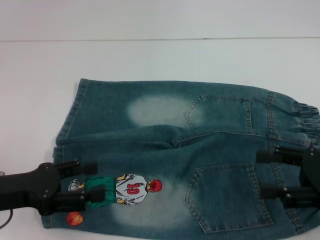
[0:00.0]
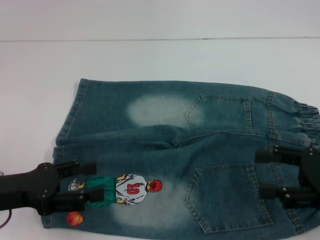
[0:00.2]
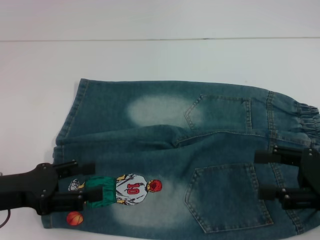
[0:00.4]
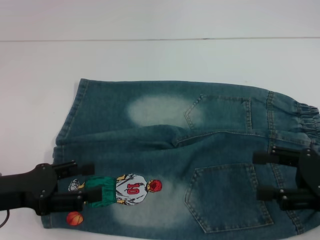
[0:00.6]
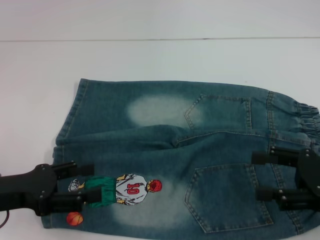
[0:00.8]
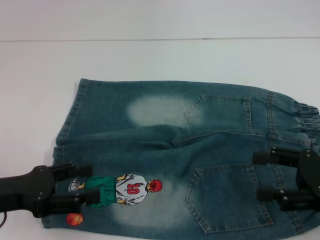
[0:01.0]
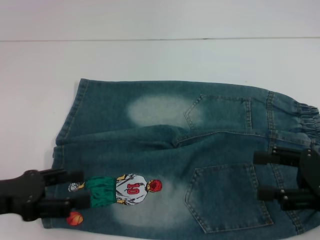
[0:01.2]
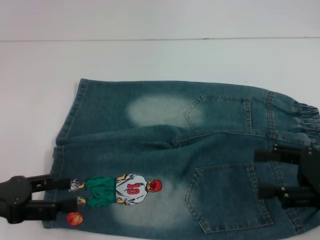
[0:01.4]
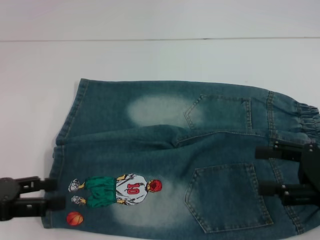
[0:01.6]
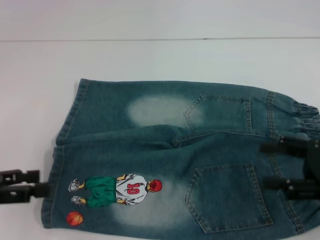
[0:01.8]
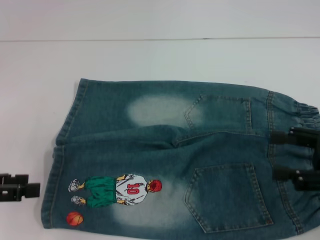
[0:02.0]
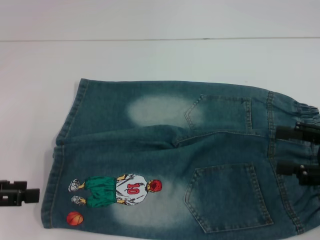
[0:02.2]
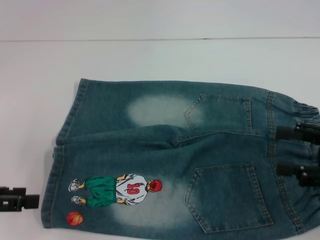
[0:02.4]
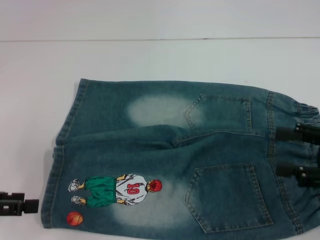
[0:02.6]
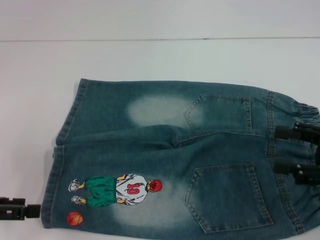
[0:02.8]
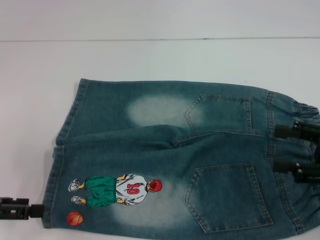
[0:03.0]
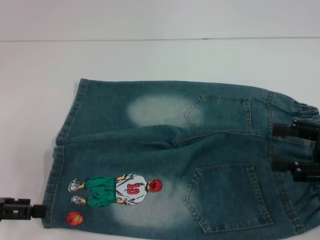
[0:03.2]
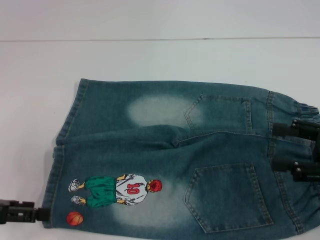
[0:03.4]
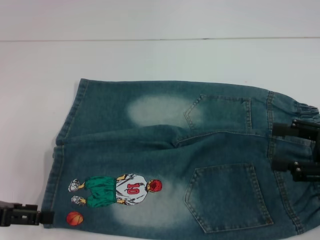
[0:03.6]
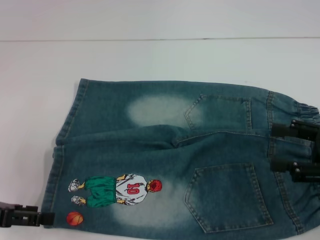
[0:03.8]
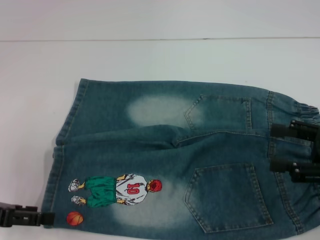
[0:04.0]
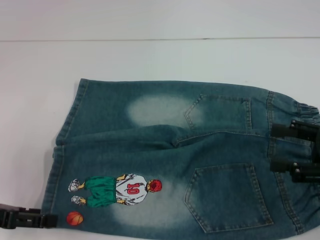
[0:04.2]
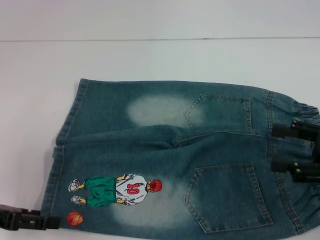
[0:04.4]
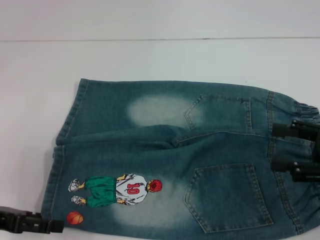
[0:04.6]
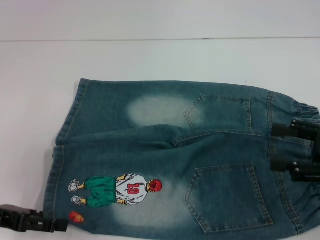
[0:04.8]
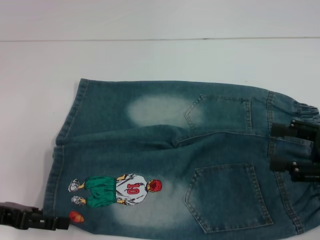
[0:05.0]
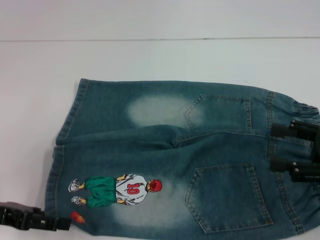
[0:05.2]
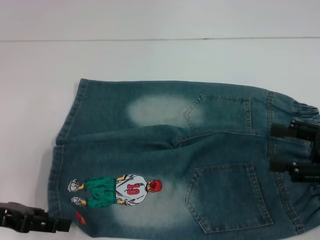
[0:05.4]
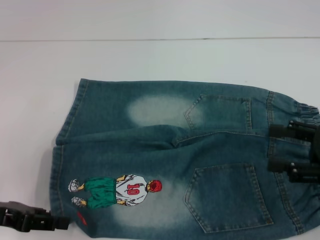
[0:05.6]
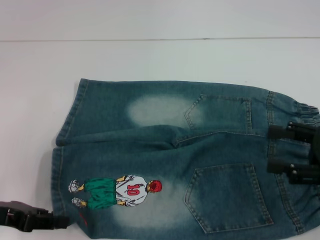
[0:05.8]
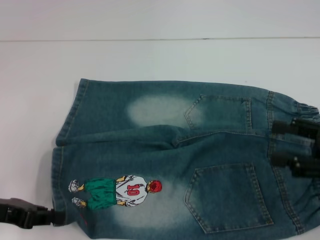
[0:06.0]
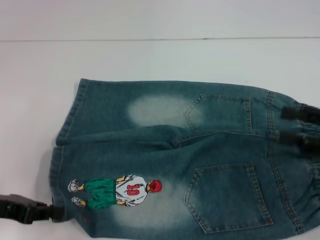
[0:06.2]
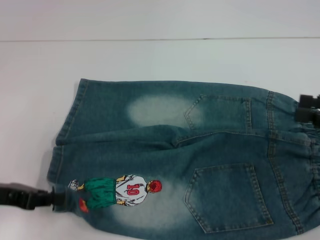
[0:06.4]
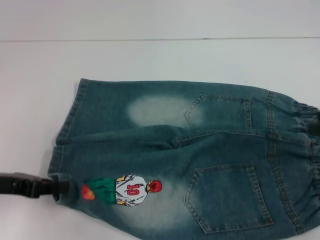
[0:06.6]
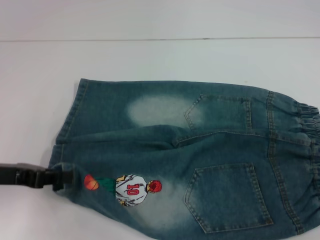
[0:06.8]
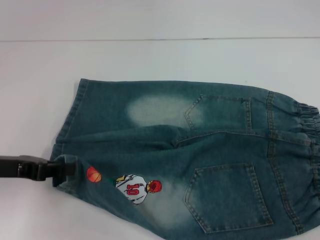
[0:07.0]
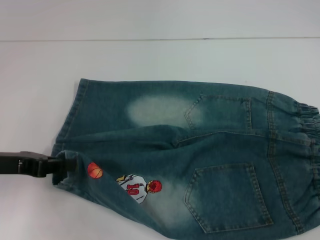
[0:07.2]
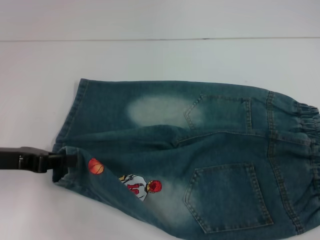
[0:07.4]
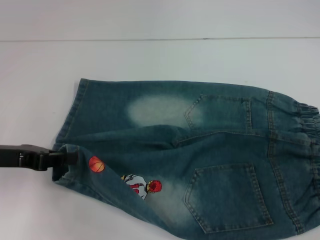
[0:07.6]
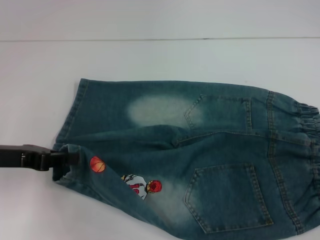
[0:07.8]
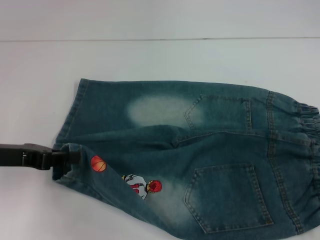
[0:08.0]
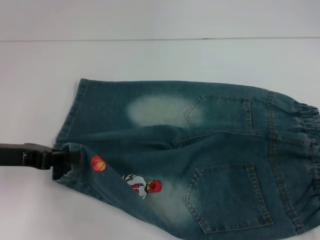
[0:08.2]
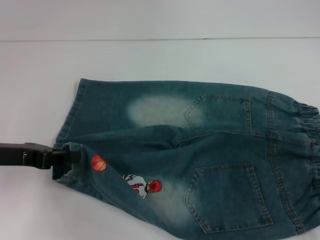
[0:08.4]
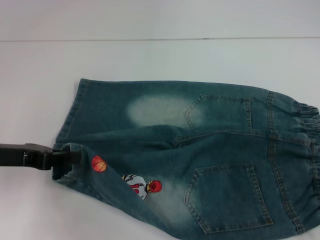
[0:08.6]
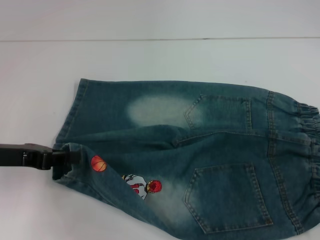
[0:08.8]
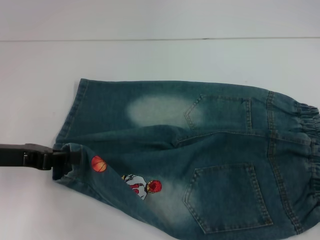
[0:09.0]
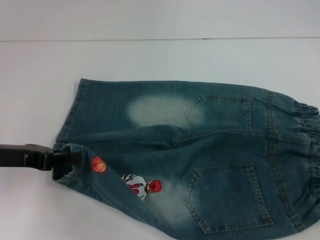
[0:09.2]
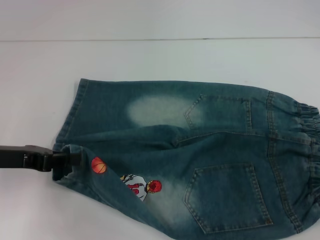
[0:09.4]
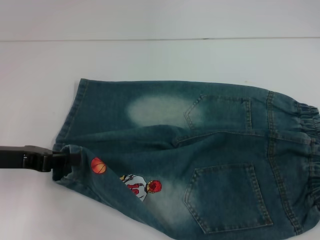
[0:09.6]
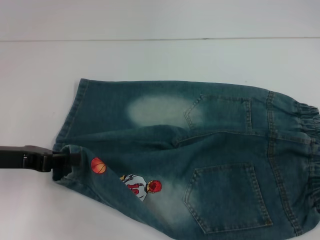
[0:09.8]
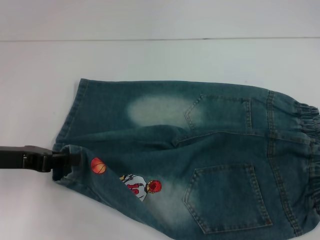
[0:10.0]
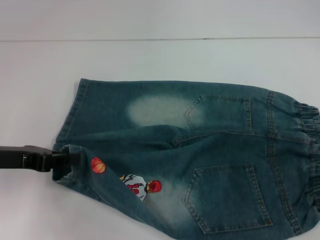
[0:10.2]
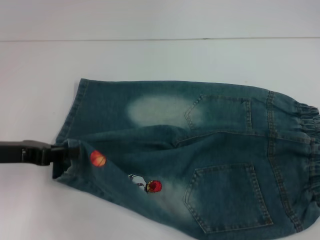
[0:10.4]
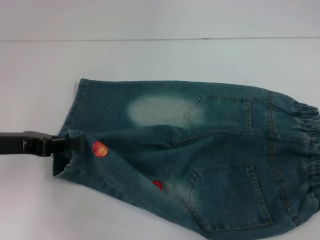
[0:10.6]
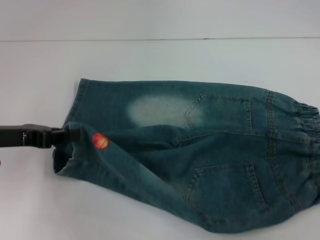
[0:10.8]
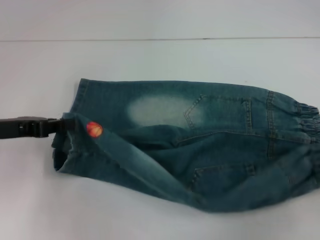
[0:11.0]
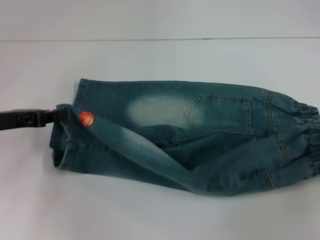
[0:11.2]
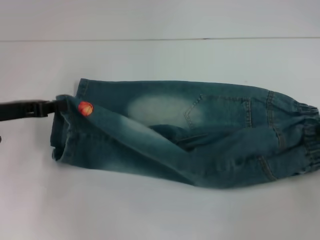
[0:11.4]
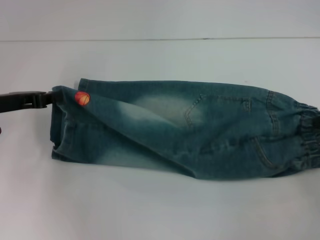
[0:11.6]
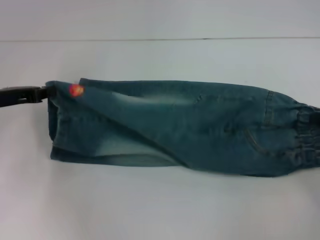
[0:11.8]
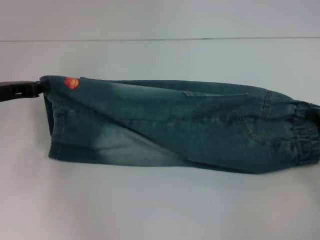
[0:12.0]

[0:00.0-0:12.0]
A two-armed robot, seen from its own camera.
Step, 0:00.0 to 0:06.2: Grab the lower left pant leg with your left hand.
Step, 0:06.4 to 0:10.2: Hold the lower right waistband with your right hand.
0:00.0 to 0:01.6: The grippers stay close to where they were, moving slightly.
0:03.0 to 0:04.4: There are only small adjustments of the grippers.
0:04.4 to 0:06.0: The left gripper closes.
0:06.0 to 0:07.6: The right gripper heads to the right, covering about 5 cm, while the left gripper shifts by about 5 cm.
0:07.6 to 0:09.0: The grippers stay close to where they were, moving slightly.
0:09.0 to 0:10.4: The right gripper closes its fingers.
0:10.4 to 0:12.0: The left gripper moves forward, about 5 cm; the right gripper moves downward, roughly 5 cm.

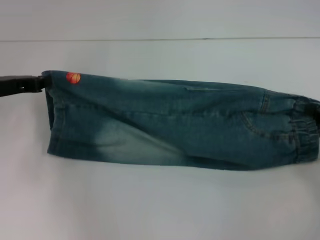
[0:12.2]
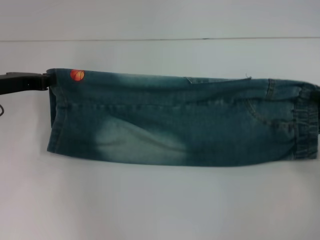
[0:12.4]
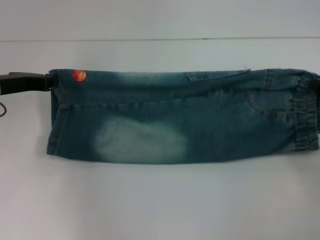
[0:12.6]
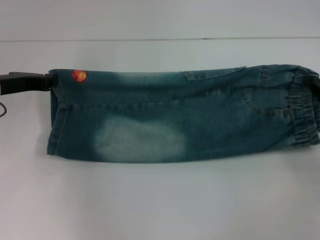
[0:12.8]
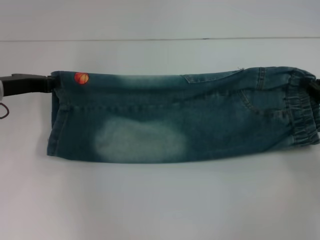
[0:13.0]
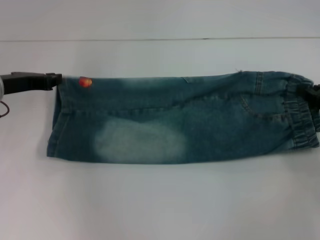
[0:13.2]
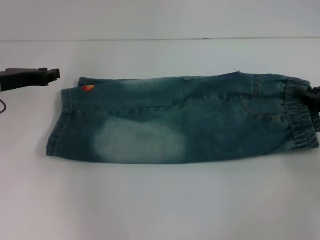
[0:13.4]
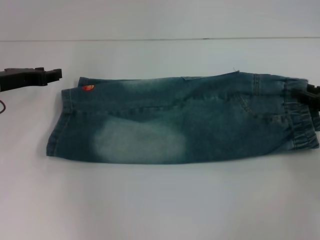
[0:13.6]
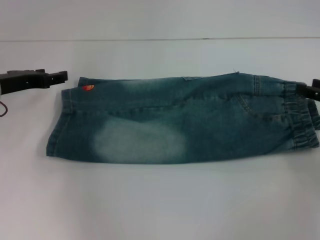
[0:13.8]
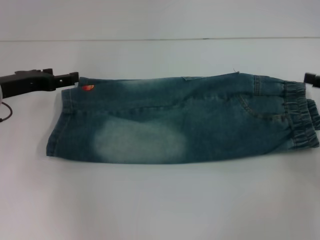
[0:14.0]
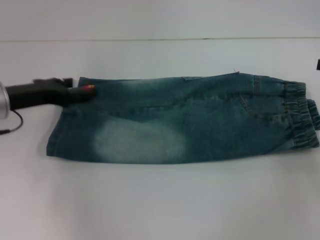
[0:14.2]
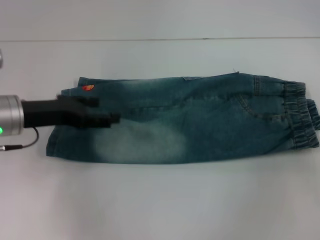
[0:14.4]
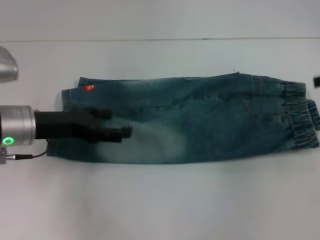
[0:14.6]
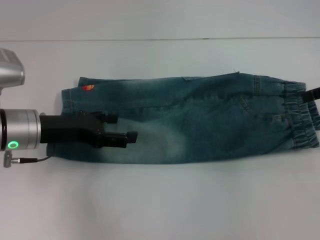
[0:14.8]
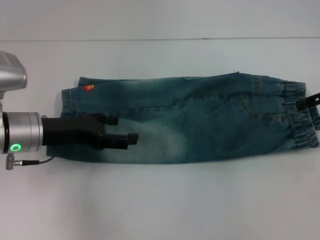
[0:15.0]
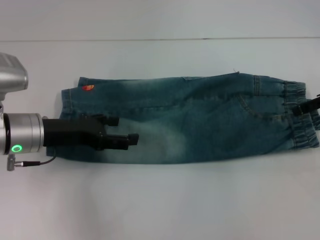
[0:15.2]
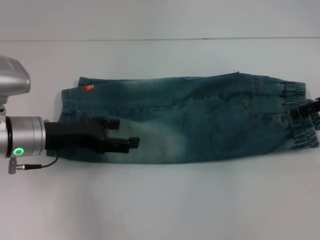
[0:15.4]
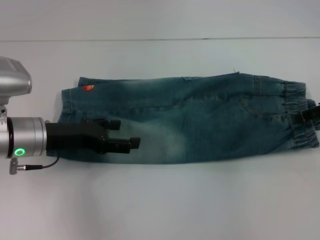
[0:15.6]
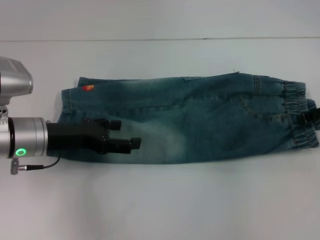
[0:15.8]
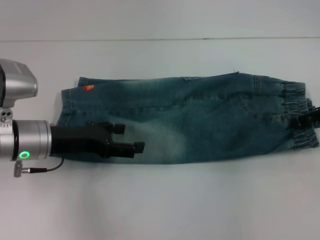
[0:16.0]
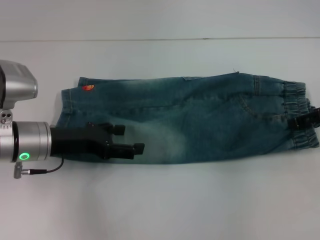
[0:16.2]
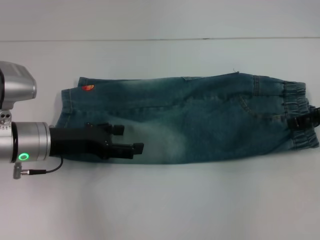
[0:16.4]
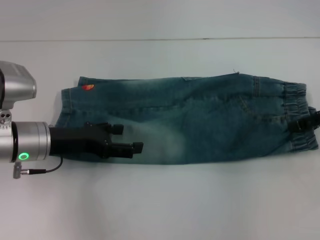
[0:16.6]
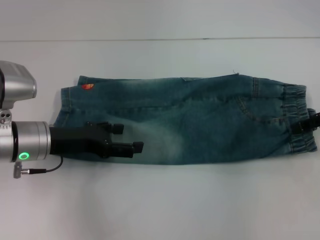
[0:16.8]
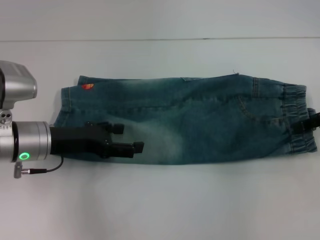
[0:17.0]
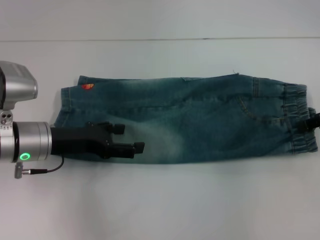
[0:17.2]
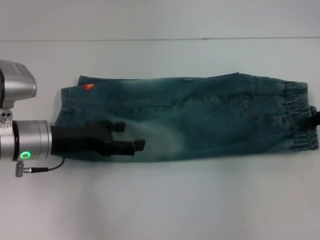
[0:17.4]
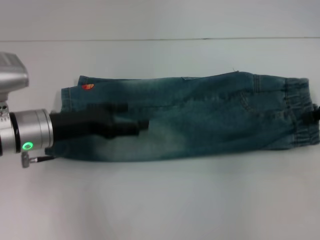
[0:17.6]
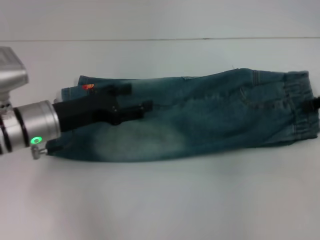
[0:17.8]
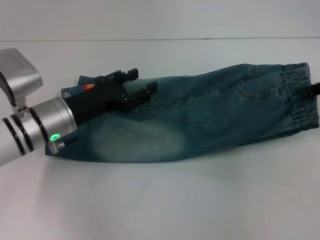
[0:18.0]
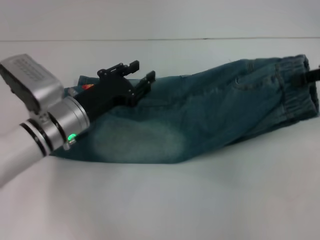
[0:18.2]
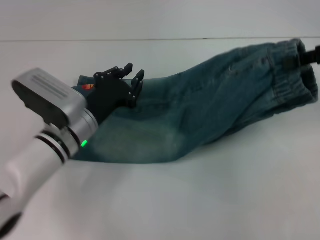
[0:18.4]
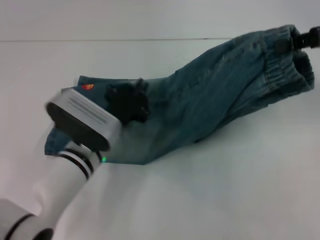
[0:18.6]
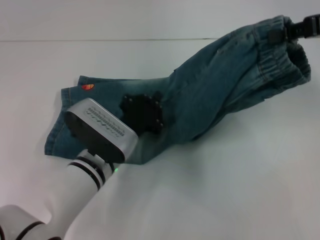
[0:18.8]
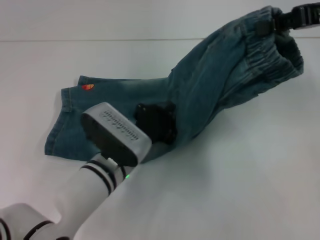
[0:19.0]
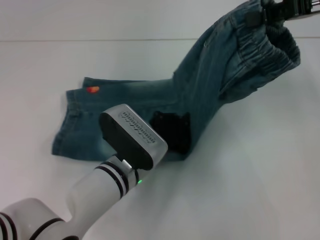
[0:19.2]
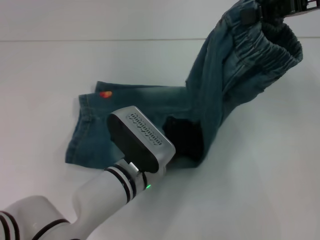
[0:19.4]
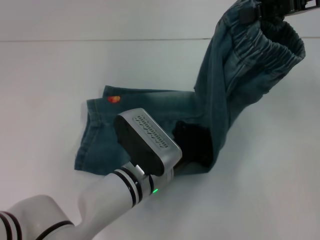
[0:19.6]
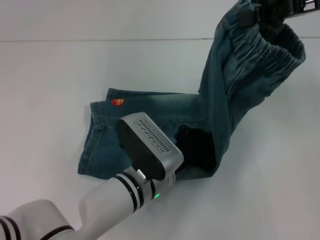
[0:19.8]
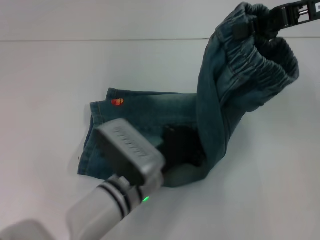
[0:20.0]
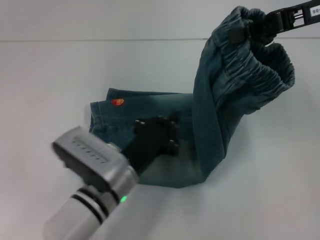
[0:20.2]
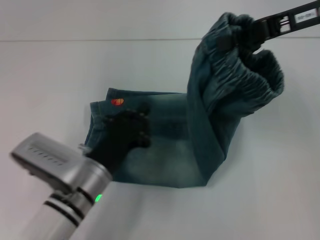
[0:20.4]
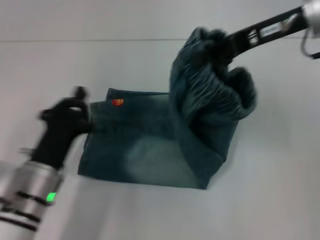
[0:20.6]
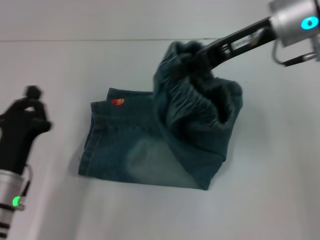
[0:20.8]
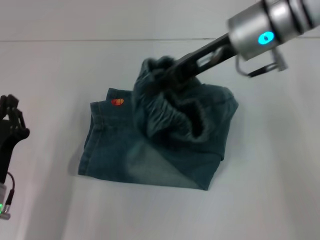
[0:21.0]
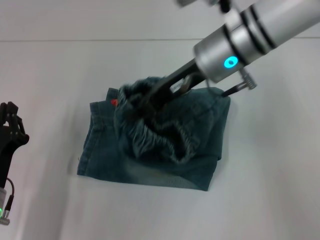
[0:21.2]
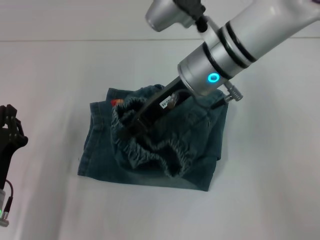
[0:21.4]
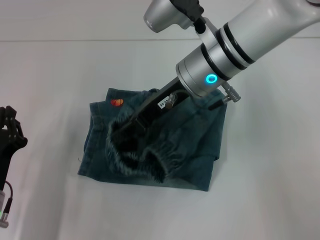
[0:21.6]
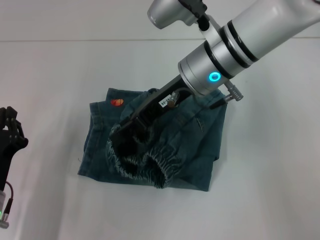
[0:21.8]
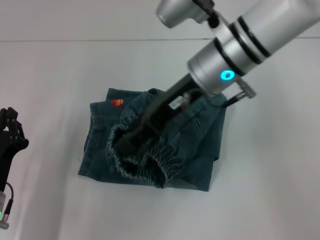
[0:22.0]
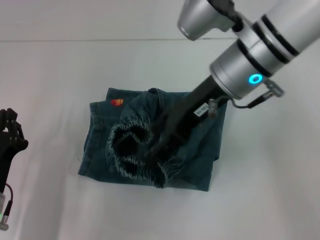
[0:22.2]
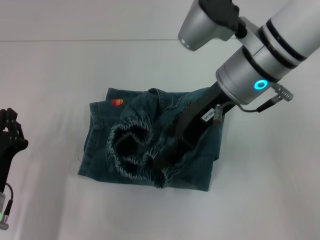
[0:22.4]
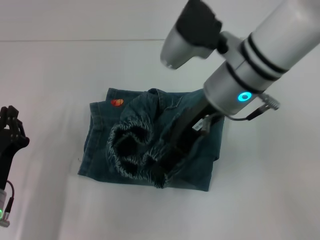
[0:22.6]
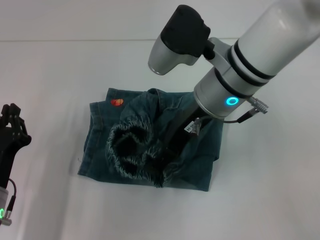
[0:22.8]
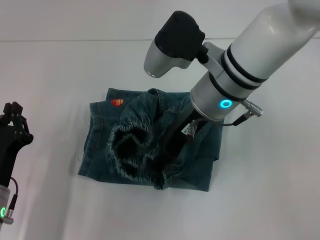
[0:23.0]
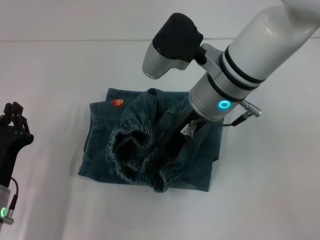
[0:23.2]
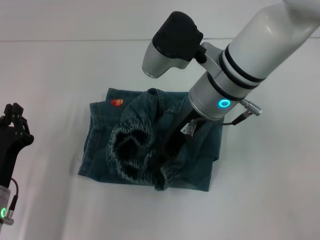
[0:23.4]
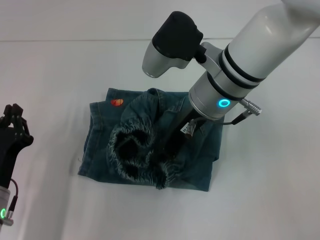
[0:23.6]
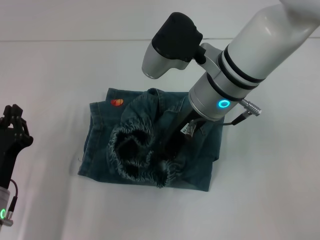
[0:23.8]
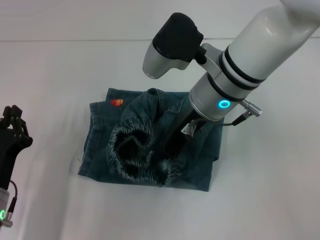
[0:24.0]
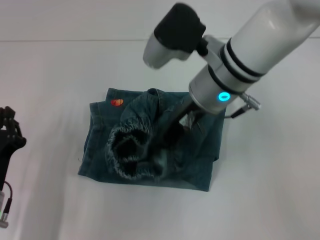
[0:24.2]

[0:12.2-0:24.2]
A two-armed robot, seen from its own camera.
Step, 0:13.8 to 0:17.6: Grab the waistband with your right hand.
Step, 0:17.8 to 0:19.6: Press the middle of the pants with your left hand.
0:12.2 to 0:13.8: The right gripper opens up. Meanwhile the left gripper opens its fingers.
0:13.8 to 0:15.2: The right gripper goes some 10 cm upward, and opens. Meanwhile the left gripper moves to the right and backward, roughly 10 cm, and opens.
0:15.2 to 0:16.6: The grippers make only small movements.
0:16.6 to 0:18.2: The right gripper is displaced upward by about 5 cm, and closes up; the left gripper moves to the right, some 5 cm.
0:18.2 to 0:19.8: The left gripper shifts about 15 cm to the right and backward, and closes; the right gripper moves to the left and upward, some 10 cm.
0:19.8 to 0:21.2: The left gripper goes roughly 20 cm to the left; the right gripper shifts some 20 cm to the left and downward.
0:21.2 to 0:22.6: The right gripper opens.
0:22.6 to 0:24.2: The right gripper closes.
